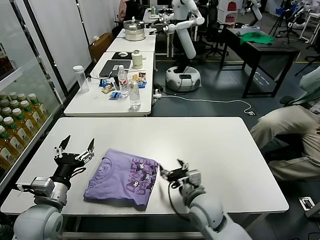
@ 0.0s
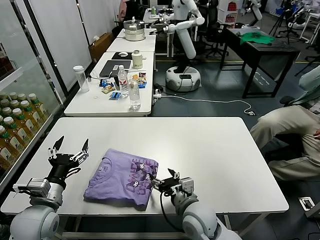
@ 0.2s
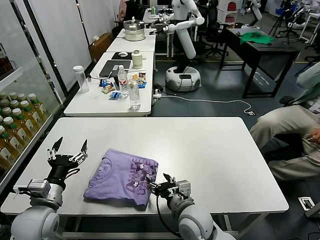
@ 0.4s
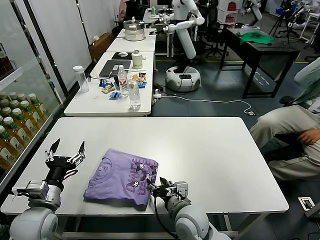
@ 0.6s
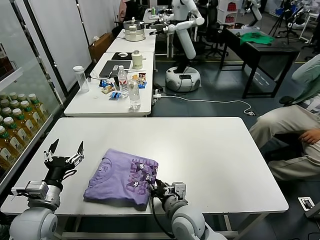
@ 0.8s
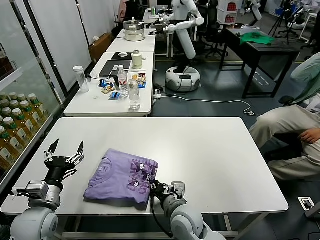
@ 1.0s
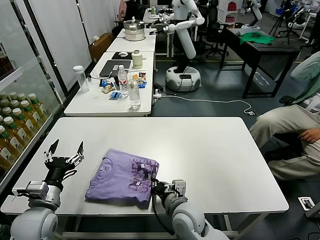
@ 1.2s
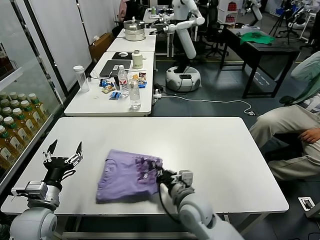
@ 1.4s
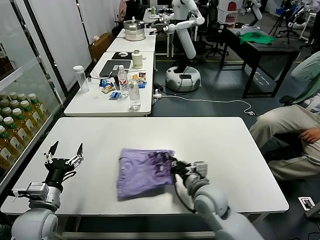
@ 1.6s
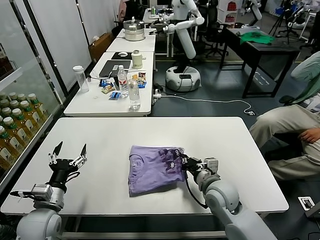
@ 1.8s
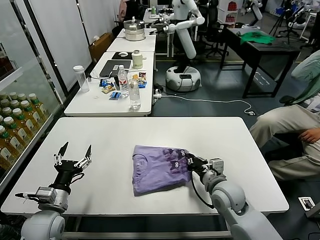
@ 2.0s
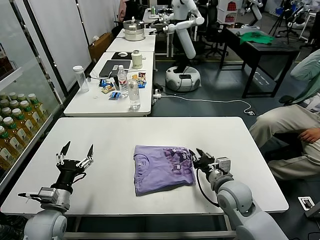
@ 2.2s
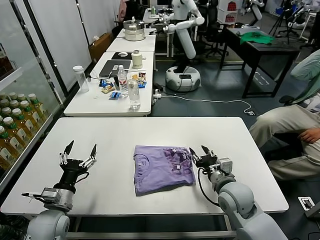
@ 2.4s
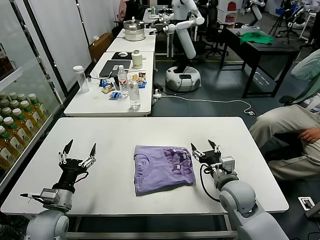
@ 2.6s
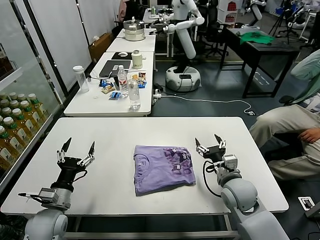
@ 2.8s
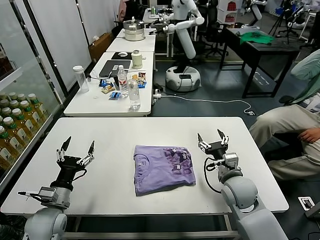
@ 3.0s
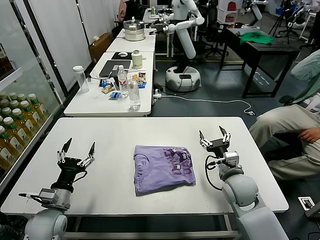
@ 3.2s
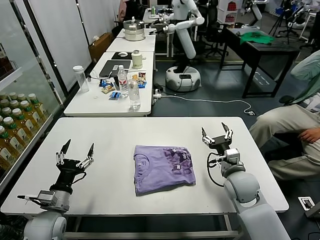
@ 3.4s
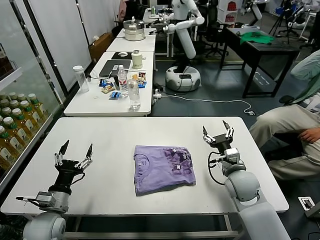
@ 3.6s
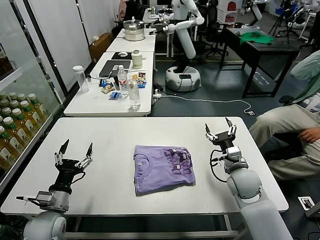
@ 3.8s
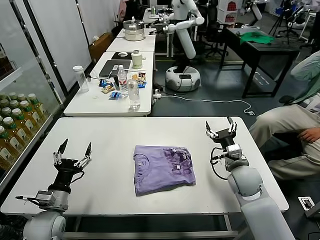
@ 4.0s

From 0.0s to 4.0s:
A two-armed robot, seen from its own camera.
Task of the whole recording: fold and organize the clothes.
Step, from 0.0s to 2.4s: Drag the clothes to the center of the table.
From 0.0s to 1.4s: The right gripper closes up.
From 1.4s to 2.6s: The right gripper heads to the right, covering roughly 15 cm, and opens its fingers.
From 2.6s to 4.0s: The right gripper goes roughly 5 cm forward.

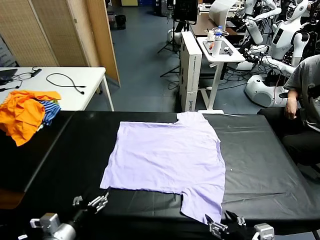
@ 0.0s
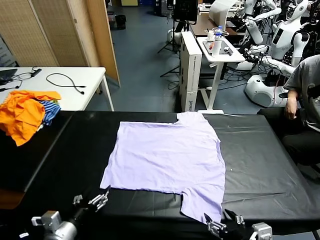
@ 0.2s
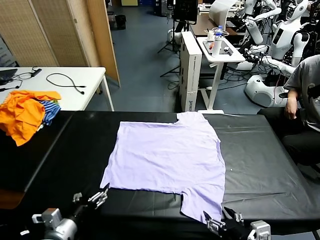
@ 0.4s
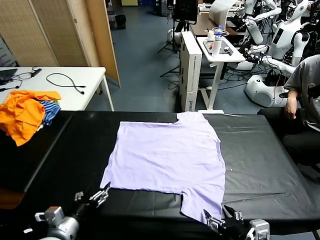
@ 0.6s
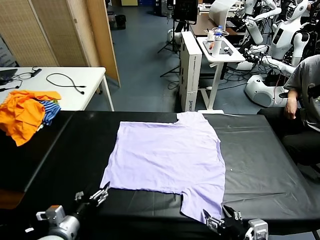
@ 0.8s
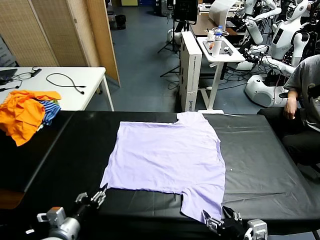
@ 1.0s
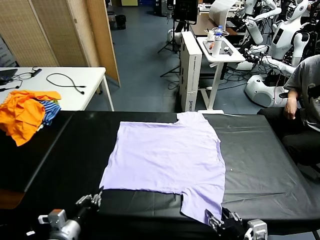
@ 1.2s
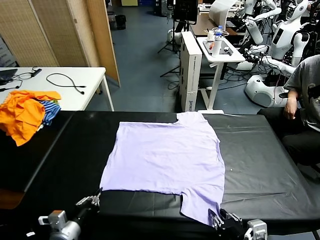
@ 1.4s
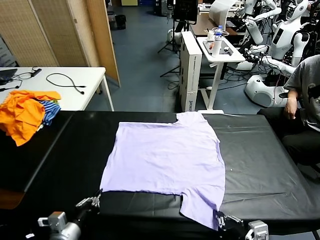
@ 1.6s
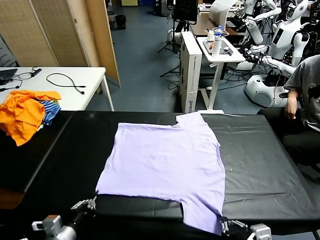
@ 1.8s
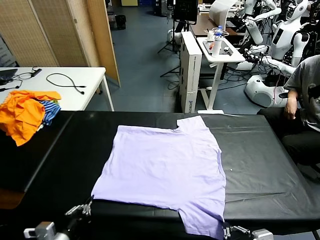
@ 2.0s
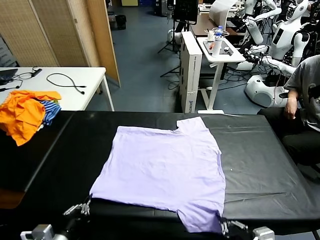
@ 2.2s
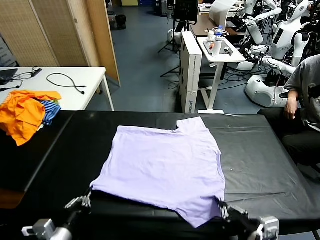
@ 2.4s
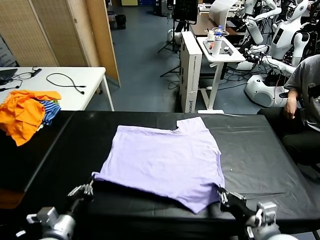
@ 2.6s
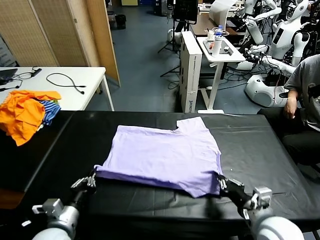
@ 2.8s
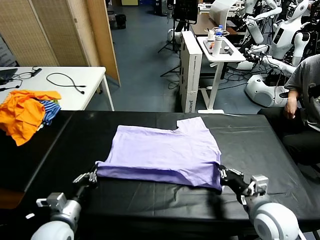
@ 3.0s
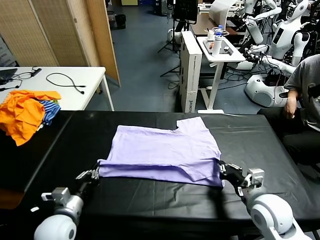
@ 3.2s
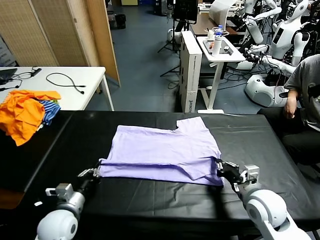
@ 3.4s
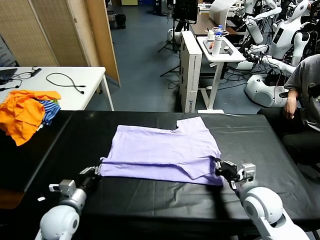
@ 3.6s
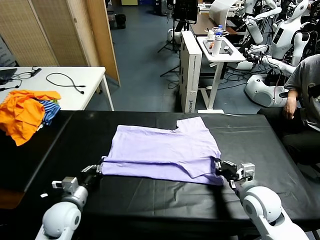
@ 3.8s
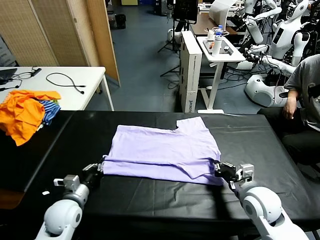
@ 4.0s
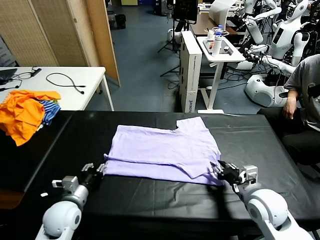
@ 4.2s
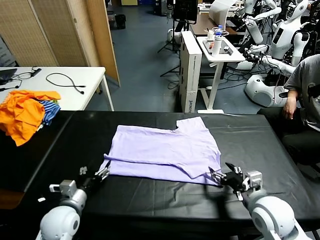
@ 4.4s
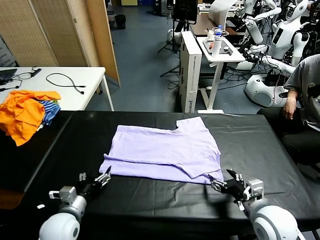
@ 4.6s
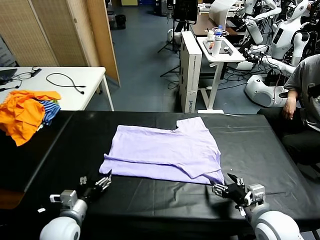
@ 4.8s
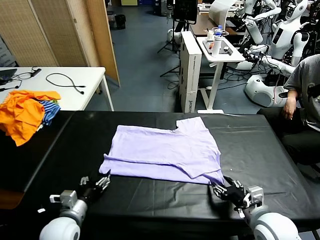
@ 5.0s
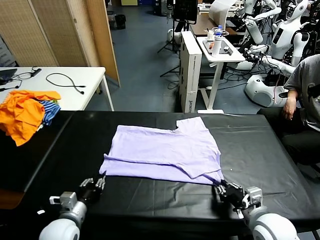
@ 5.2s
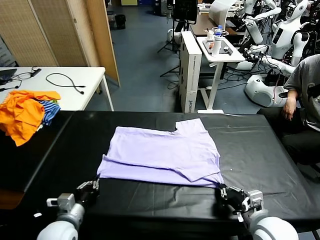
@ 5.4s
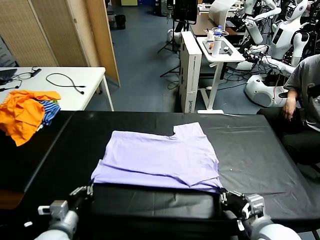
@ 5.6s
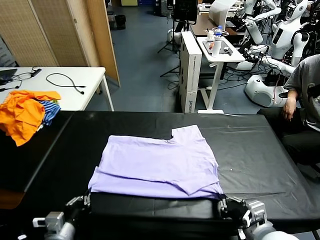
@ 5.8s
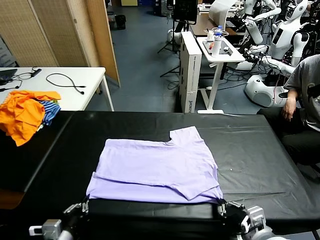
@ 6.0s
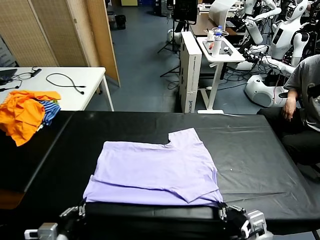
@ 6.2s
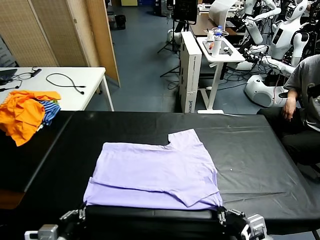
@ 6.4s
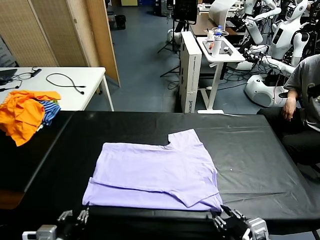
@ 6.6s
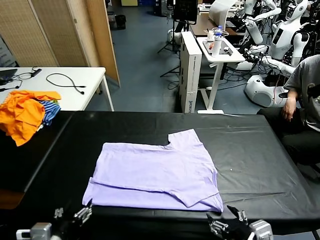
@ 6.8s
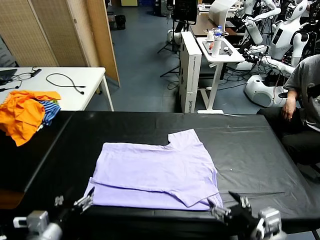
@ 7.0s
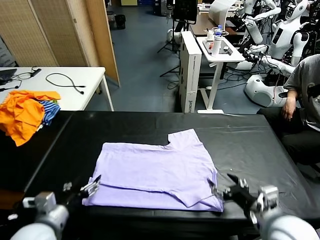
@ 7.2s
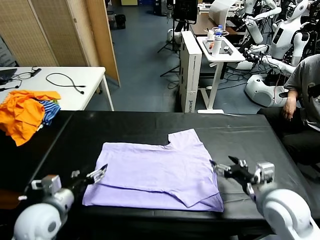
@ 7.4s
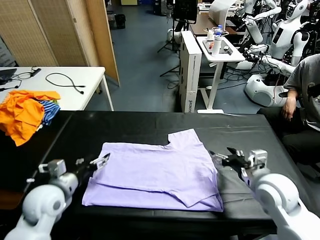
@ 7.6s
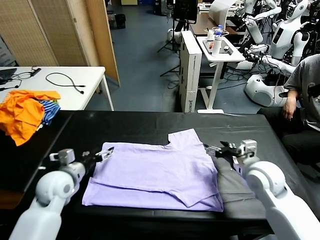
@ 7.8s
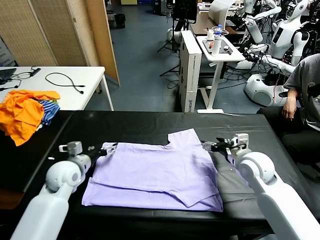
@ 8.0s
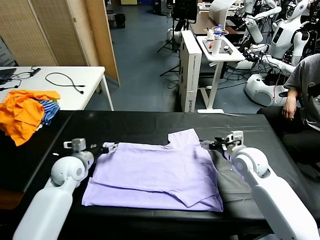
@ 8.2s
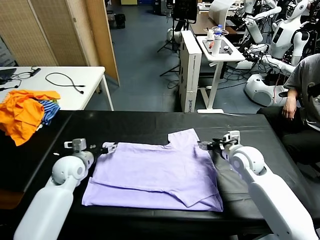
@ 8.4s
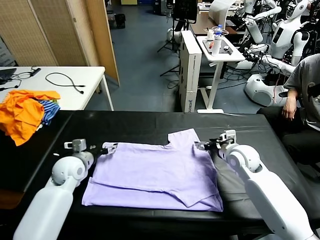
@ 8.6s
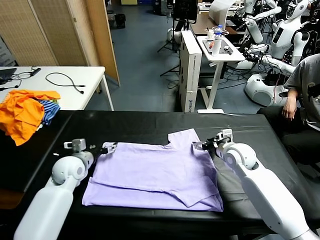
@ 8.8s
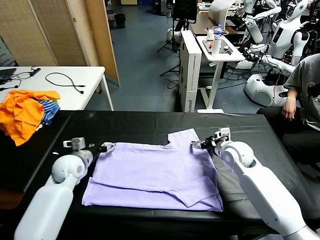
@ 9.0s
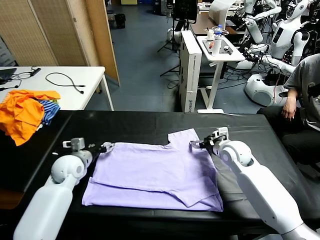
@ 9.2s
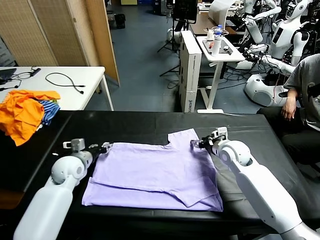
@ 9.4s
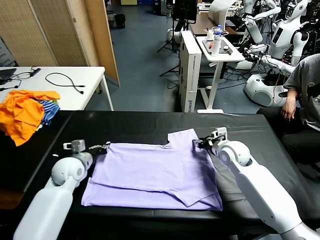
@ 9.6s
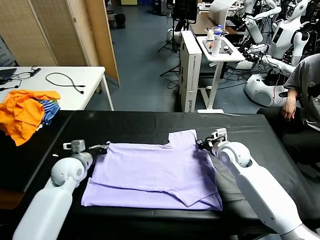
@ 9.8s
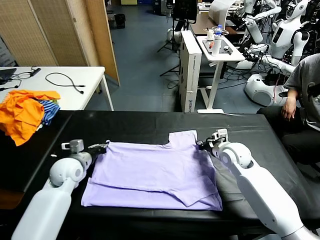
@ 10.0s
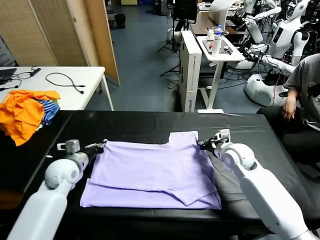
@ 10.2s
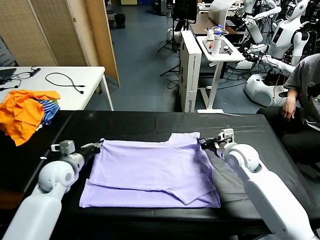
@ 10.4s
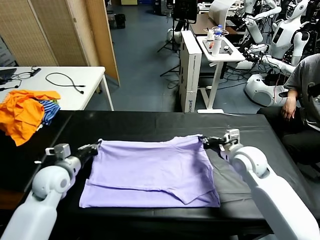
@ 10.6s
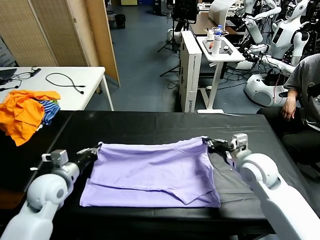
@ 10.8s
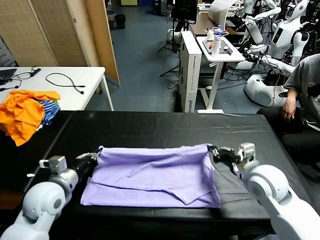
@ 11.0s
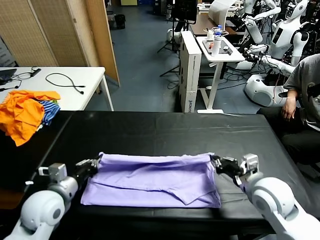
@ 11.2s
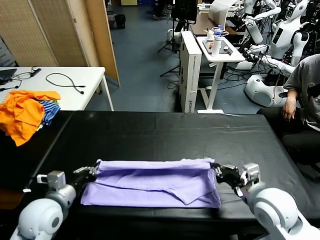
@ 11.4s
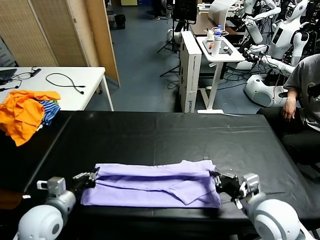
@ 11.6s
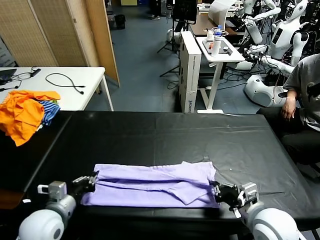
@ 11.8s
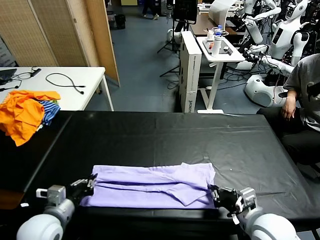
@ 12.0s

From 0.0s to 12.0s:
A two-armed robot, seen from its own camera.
Task of the whole recording: fold and organize the clothes.
Step, from 0.0s to 1.6s: use both grippers simultaneously to clamp the lower edge of the clothing fabric.
Step, from 1.8s to 4.2s: use both grippers to drag the lower edge of the fabric forward and fold it over the upper edge.
Step, from 4.6s to 6.8s: Drag the clothes downward with both gripper.
Step, from 7.0s to 9.8s: use both grippers simultaneously to clamp the upper edge of the clothing fabric.
From 1.6s to 3.0s: The right gripper goes roughly 15 cm forward, while the left gripper moves forward, roughly 10 cm.
From 3.0s to 4.4s: The right gripper opens. The left gripper opens.
From 4.4s to 6.0s: Both grippers move backward, approximately 10 cm. The left gripper closes its fingers. The right gripper closes up.
From 6.0s to 7.6s: Both grippers travel together forward, approximately 20 cm. The right gripper opens its fingers, while the left gripper opens.
From 7.6s to 9.0s: The left gripper travels forward by roughly 10 cm, while the right gripper heads forward and downward, covering about 10 cm.
From 9.0s to 10.4s: The two grippers go some 5 cm backward. The right gripper closes up, while the left gripper closes.
From 10.4s to 12.0s: Both grippers travel together backward, about 20 cm. The right gripper opens.

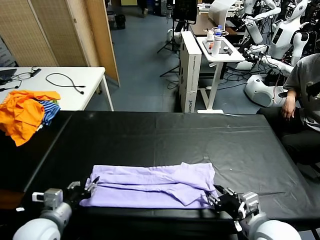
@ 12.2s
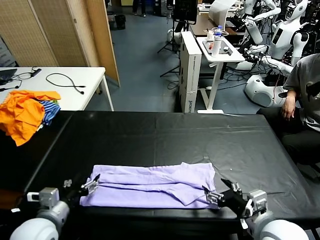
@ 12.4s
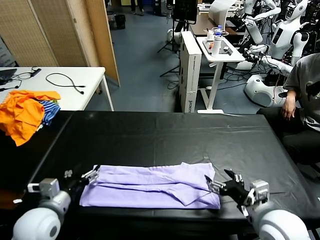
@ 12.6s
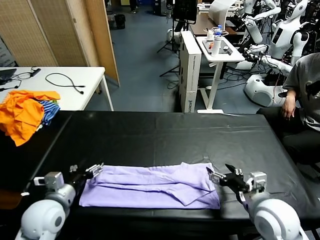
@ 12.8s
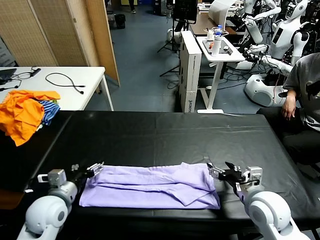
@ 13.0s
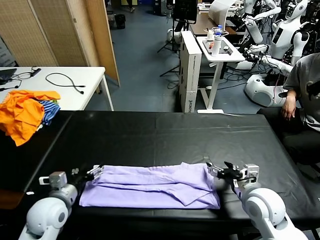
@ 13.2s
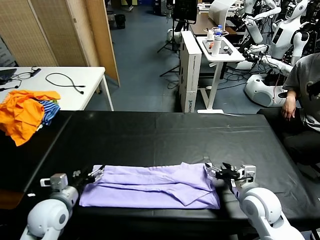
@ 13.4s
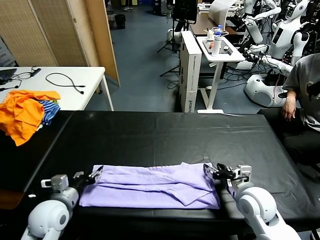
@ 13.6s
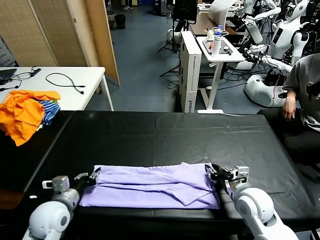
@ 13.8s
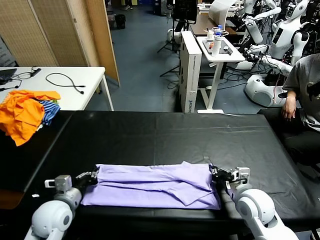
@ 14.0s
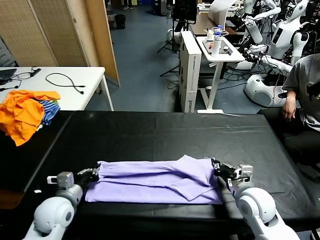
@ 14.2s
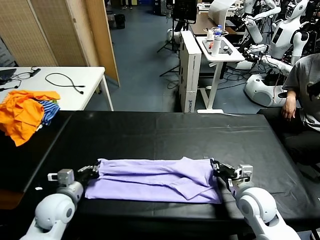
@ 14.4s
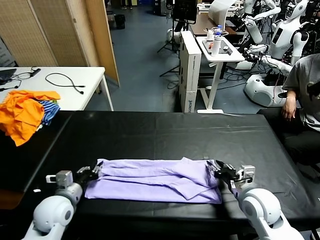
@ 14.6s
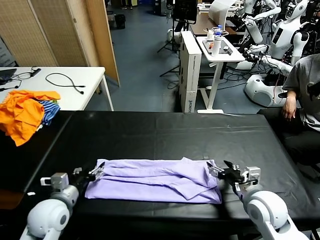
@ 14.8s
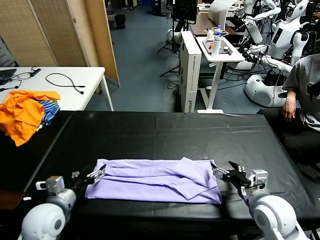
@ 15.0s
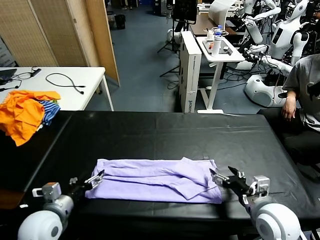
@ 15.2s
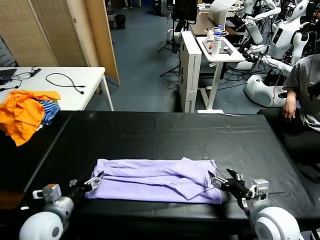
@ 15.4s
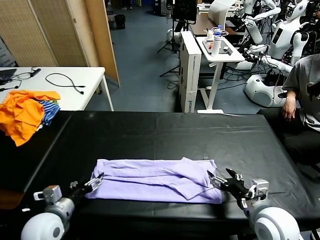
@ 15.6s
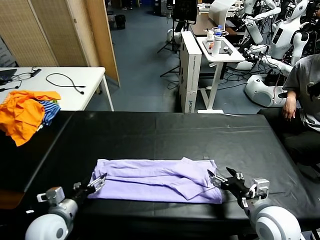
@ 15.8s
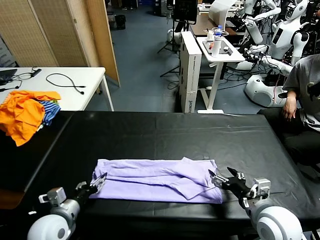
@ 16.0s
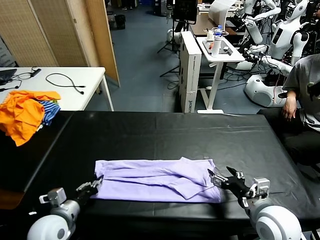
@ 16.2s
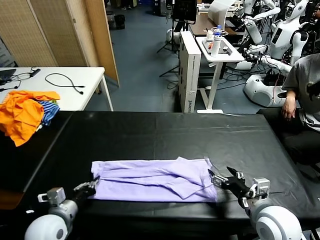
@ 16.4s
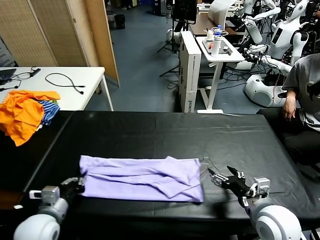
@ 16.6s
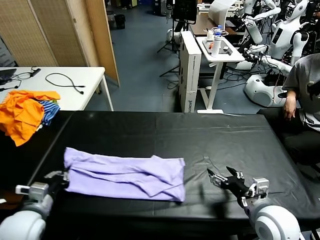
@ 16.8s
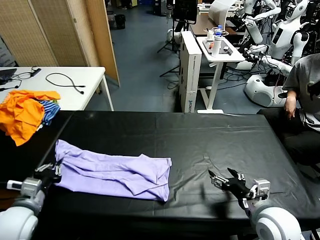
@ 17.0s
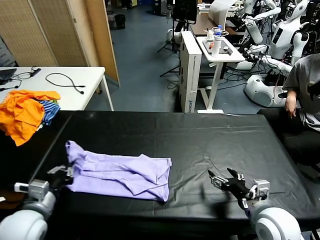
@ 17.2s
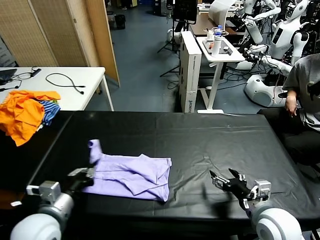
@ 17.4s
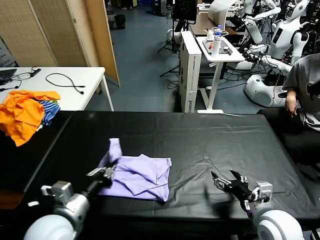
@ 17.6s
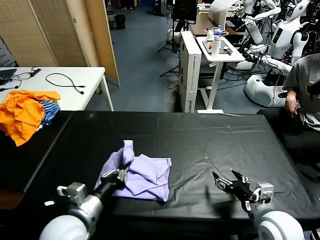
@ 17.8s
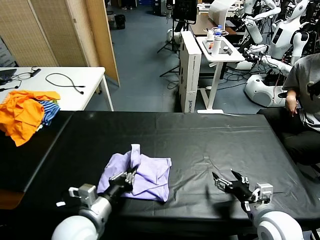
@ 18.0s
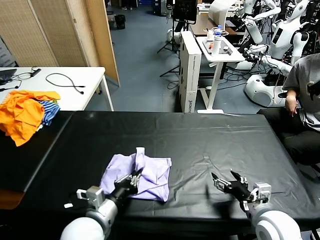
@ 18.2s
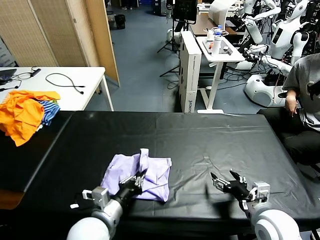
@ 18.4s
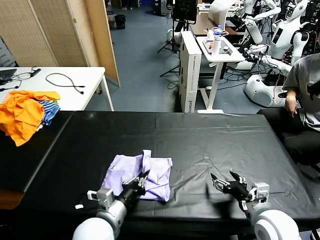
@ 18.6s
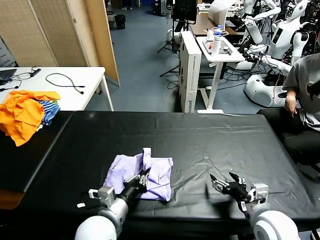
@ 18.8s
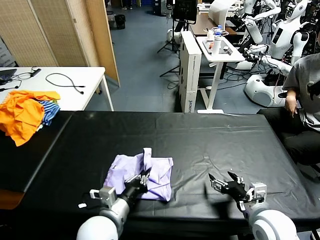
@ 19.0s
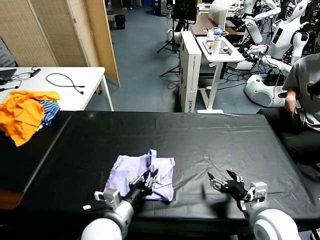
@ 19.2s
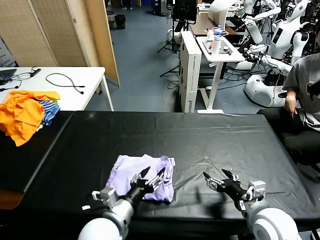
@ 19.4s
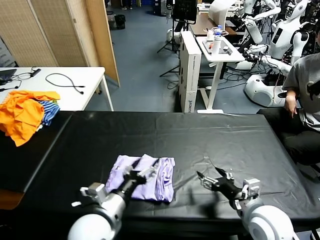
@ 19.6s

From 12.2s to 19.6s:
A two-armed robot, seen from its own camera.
Task of the whole recording: fold and organize the clothes.
Step, from 12.2s to 14.8s: use both grippers to drag the upper edge of the fabric backward and fold it over the lower edge.
Step, from 15.0s to 16.4s: use the left gripper to clamp the left edge of the fabric.
From 12.2s to 13.6s: The left gripper travels forward by about 5 cm; the right gripper travels forward and downward by about 15 cm, and closes.
From 13.6s to 15.2s: The left gripper opens its fingers, while the right gripper moves backward, roughly 5 cm, and opens.
From 15.2s to 16.6s: The left gripper closes its fingers.
From 16.6s to 18.2s: The left gripper heads to the right, covering about 15 cm.
From 18.2s to 19.6s: The left gripper opens.
